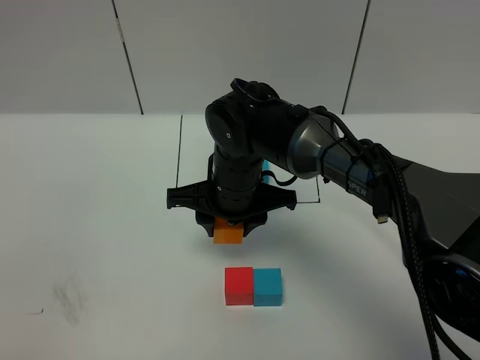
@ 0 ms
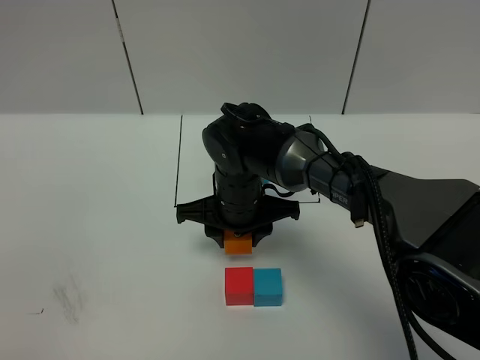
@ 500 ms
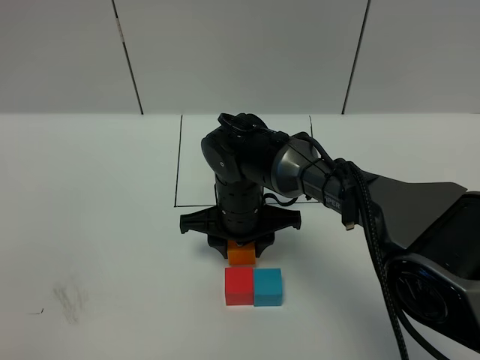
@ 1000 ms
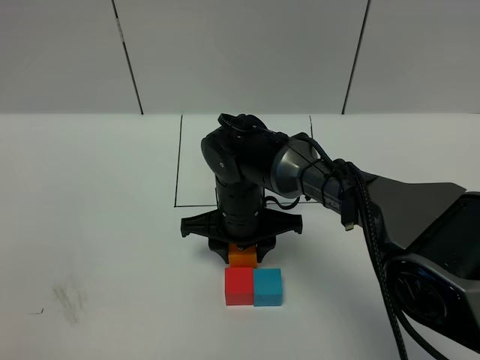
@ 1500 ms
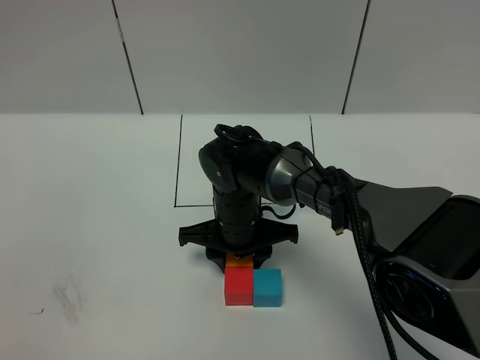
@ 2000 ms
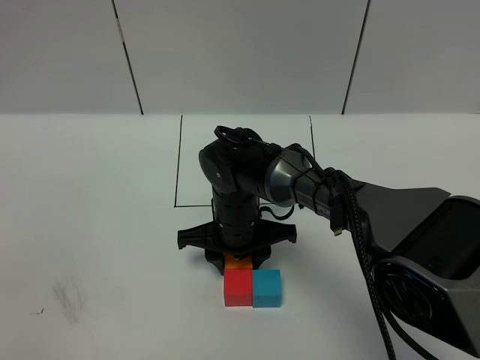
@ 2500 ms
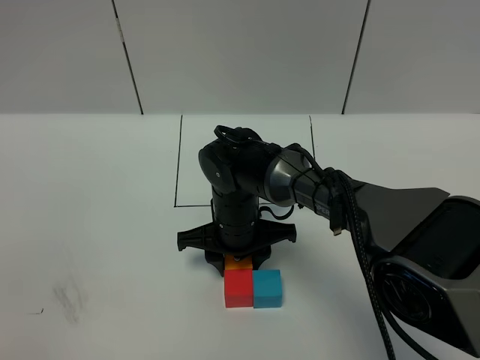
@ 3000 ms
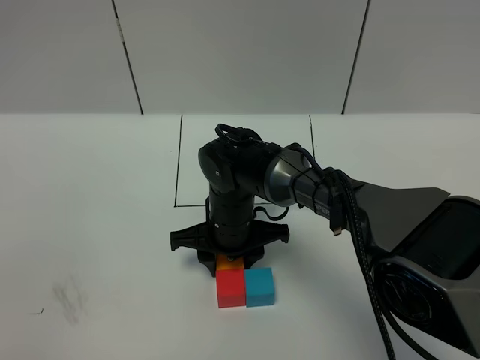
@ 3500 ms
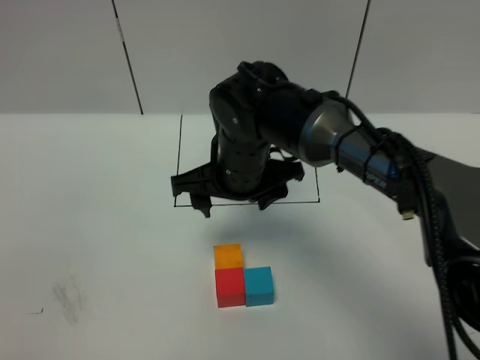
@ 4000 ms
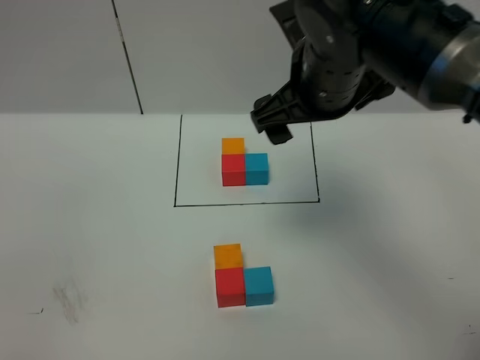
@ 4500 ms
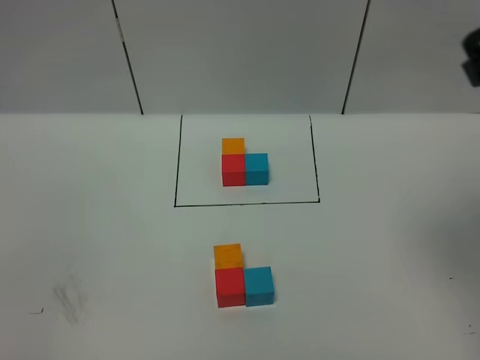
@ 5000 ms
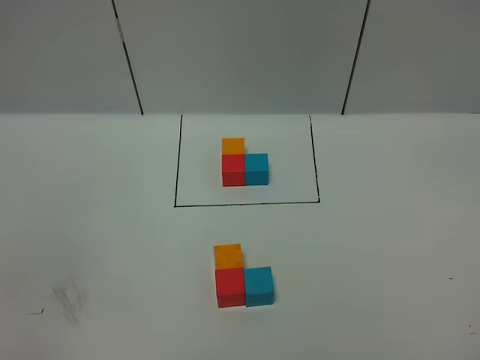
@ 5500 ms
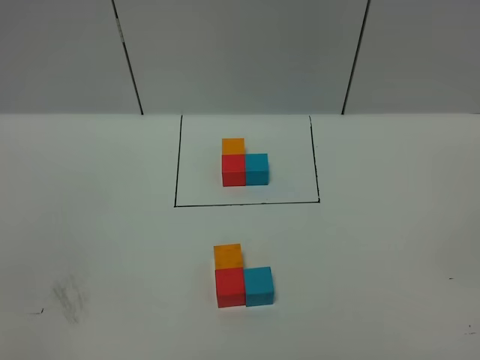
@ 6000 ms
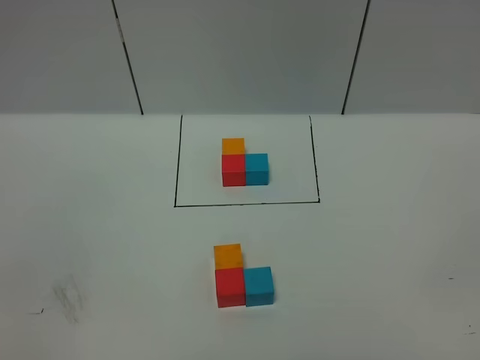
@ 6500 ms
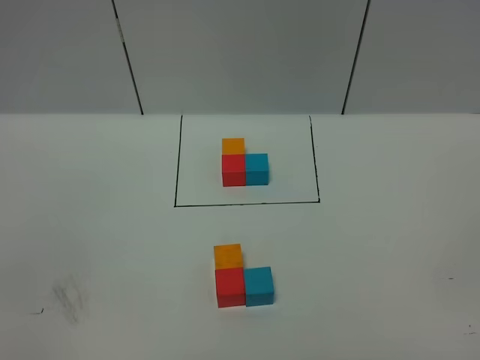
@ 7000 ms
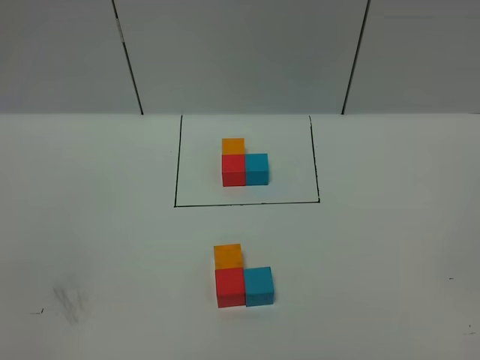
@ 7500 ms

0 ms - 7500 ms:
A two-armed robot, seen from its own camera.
Task of the whole recording: According to the building block template in front, assemble the scattered blocks together.
Step, 0 ms - 3500 ms: Put the orange cube on the behind of the red cube.
0 ms - 2000 ms: The right gripper heads downward, covering roughly 5 cm.
2000 ms - 4000 ms: The right gripper goes approximately 10 cm upward, and opens.
4000 ms - 5500 ms: The right gripper heads to the right, backward and upward, covering approximately 40 cm.
